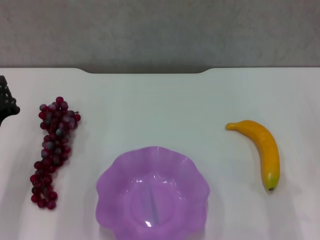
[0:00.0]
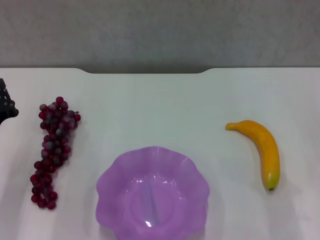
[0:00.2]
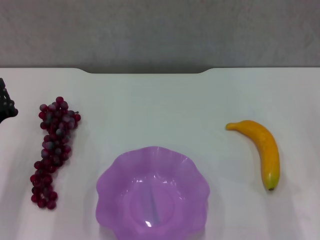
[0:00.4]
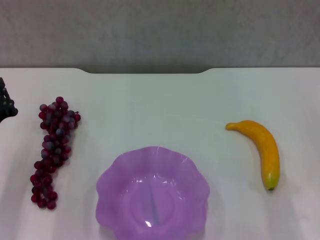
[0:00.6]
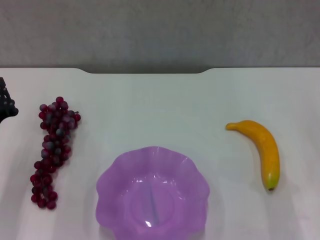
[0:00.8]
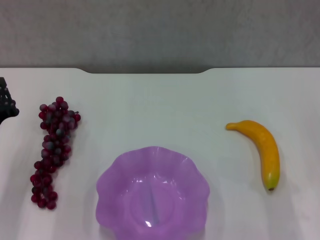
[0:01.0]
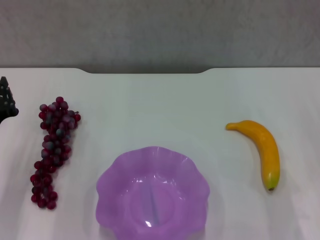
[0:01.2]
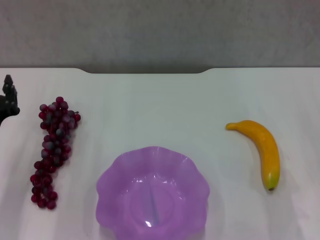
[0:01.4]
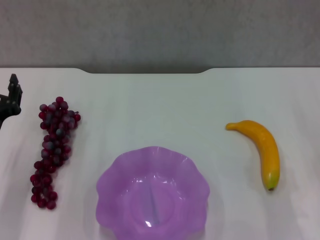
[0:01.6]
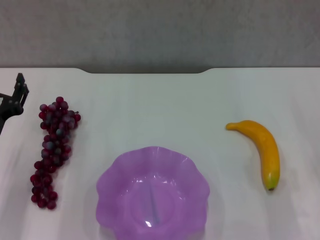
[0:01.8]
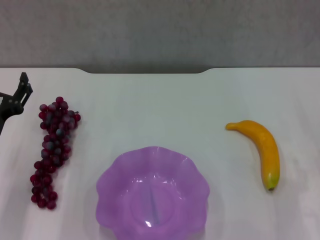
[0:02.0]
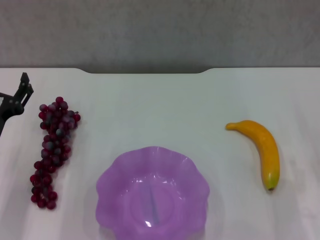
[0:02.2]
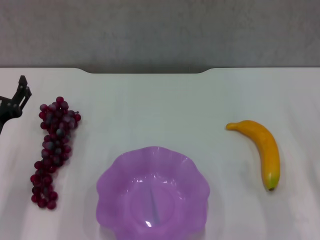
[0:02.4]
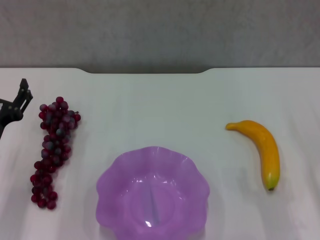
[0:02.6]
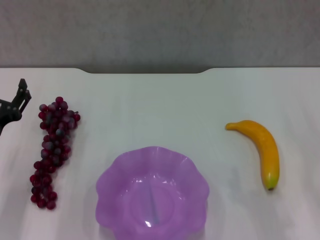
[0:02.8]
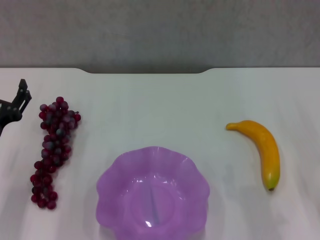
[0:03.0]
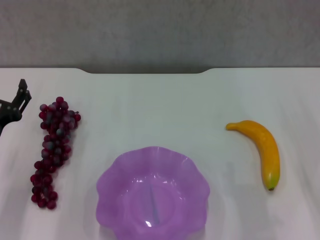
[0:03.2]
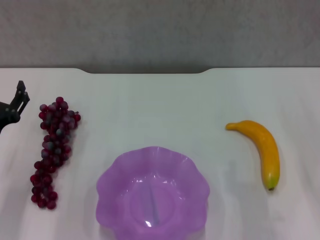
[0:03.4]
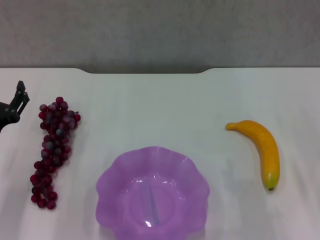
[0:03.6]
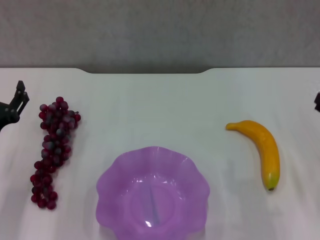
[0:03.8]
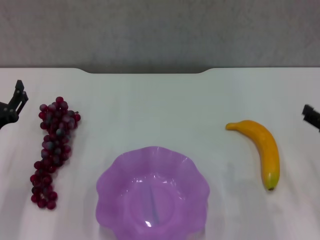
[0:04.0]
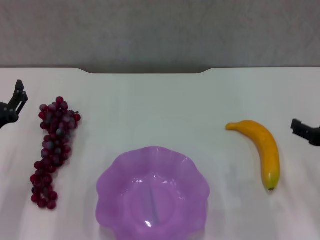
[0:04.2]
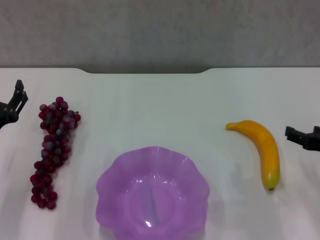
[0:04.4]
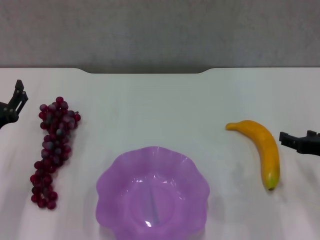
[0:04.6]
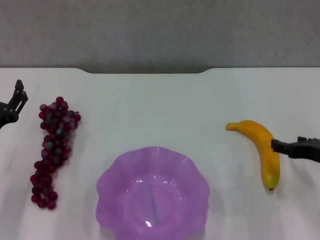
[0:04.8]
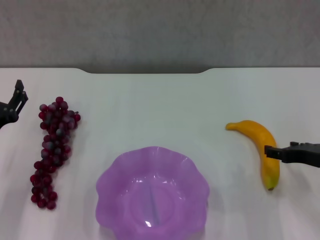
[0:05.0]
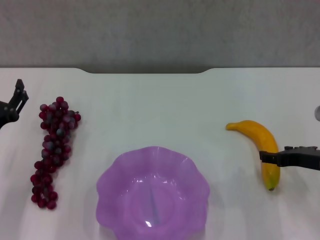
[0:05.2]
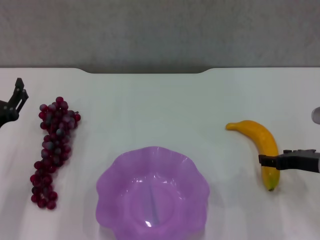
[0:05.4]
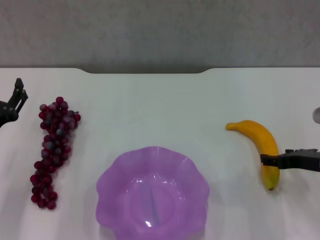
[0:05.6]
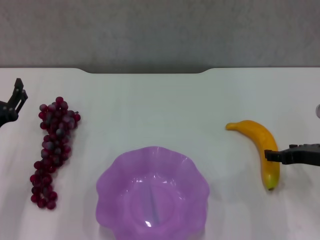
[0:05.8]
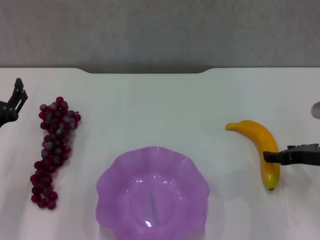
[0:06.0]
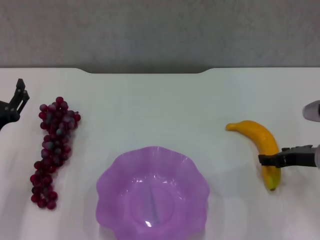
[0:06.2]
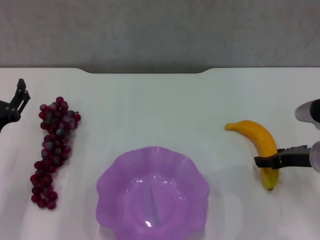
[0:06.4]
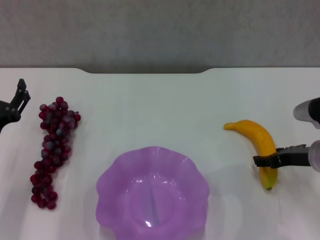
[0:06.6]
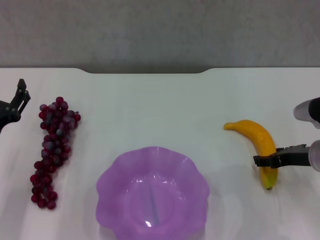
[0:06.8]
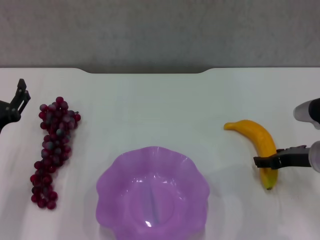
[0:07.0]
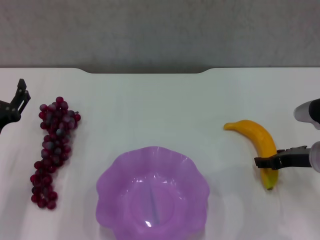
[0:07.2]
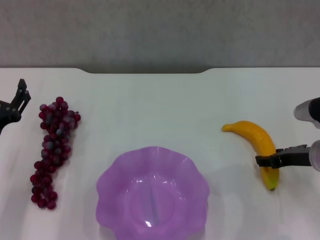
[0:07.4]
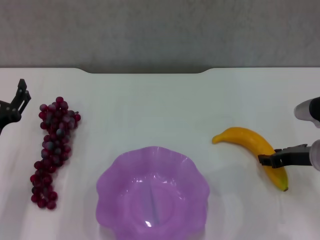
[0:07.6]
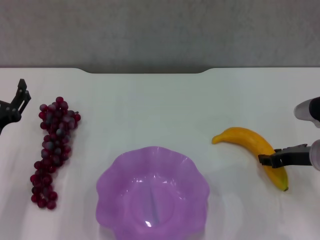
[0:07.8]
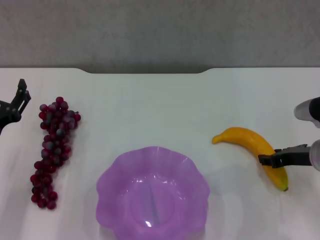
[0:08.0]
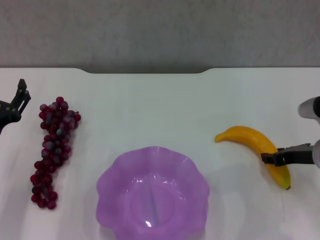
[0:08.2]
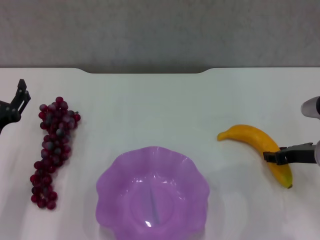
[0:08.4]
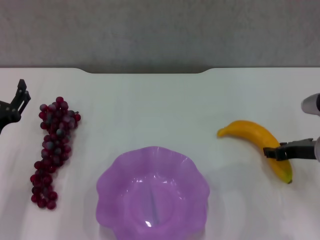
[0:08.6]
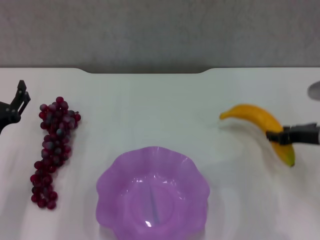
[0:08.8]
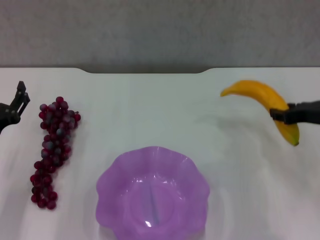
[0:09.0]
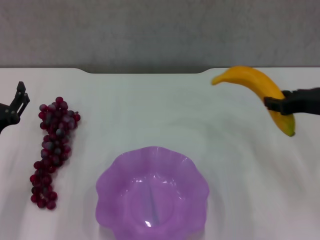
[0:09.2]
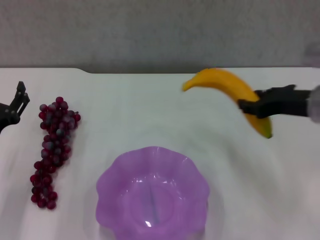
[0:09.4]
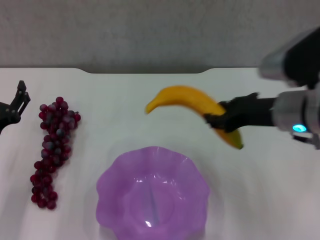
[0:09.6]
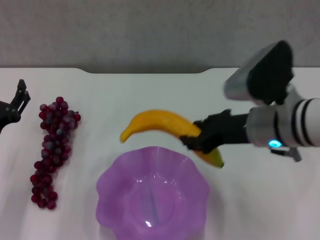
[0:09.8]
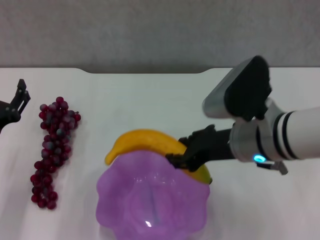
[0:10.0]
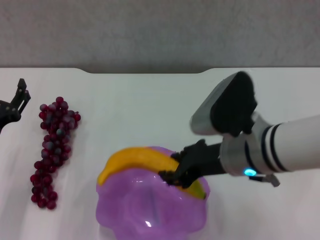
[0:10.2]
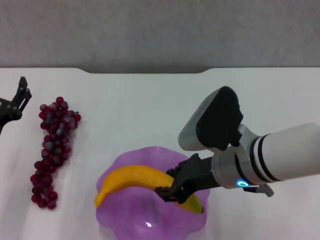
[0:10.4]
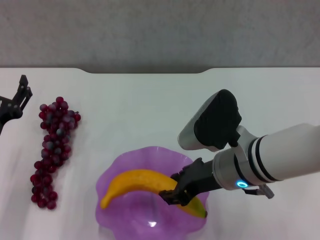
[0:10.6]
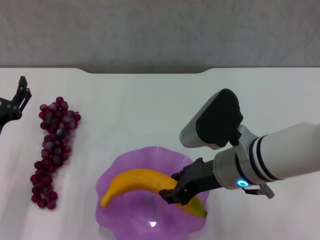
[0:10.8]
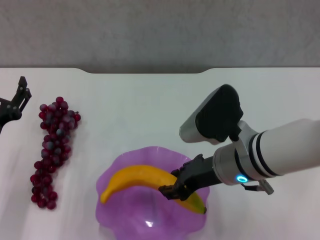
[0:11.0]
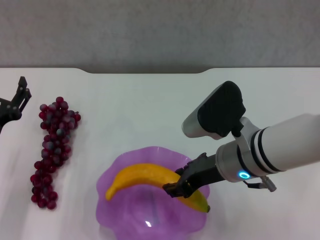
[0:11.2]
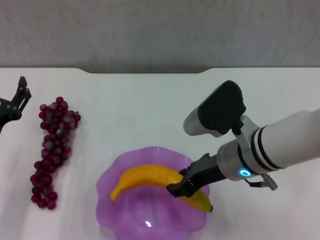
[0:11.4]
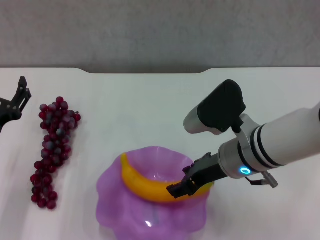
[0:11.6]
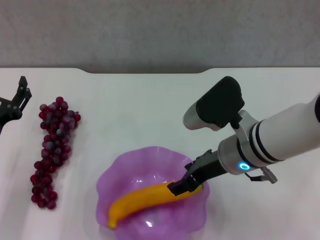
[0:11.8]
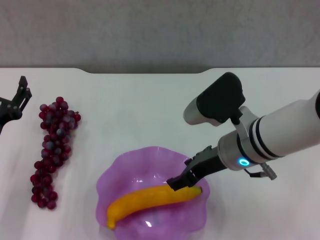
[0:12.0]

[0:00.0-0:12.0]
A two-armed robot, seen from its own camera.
Step, 0:00.0 to 0:07.6: Grasp the banana with right gripper.
Step, 0:07.8 to 0:11.8: Place the banana in the purple plate with right gripper.
0:00.0 to 0:01.6: The left gripper opens up.
0:01.6 to 0:03.0: The left gripper opens.
0:03.0 to 0:04.4: The right gripper moves roughly 5 cm.
0:04.4 to 0:06.0: The right gripper travels forward by roughly 5 cm.
0:06.0 to 0:07.6: The grippers move only a little.
0:07.6 to 0:09.0: The right gripper goes roughly 5 cm upward.
0:09.0 to 0:10.4: The right gripper travels to the left by about 20 cm.
0:10.4 to 0:12.0: The grippers move only a little.

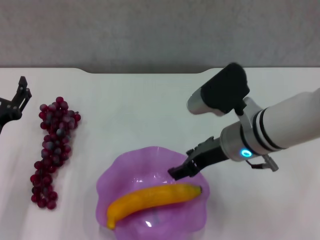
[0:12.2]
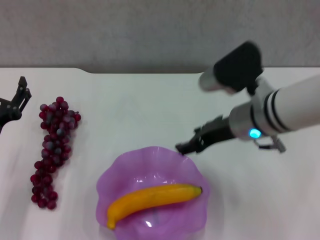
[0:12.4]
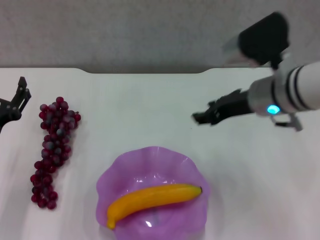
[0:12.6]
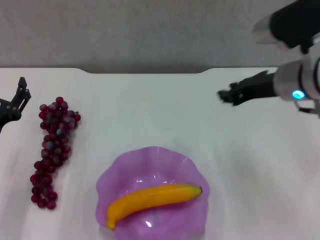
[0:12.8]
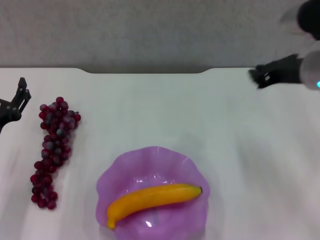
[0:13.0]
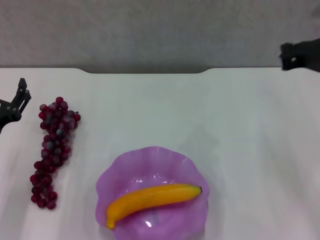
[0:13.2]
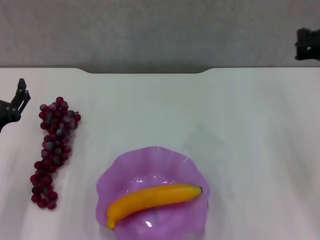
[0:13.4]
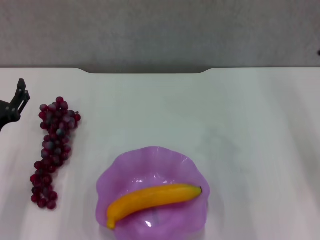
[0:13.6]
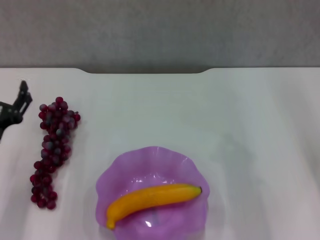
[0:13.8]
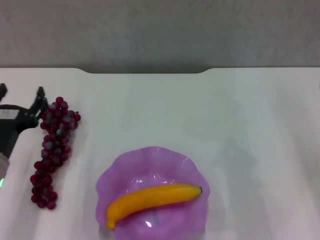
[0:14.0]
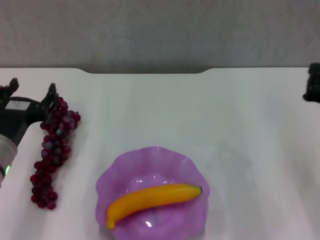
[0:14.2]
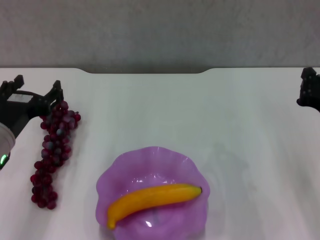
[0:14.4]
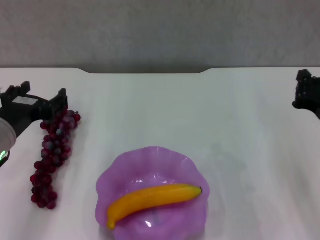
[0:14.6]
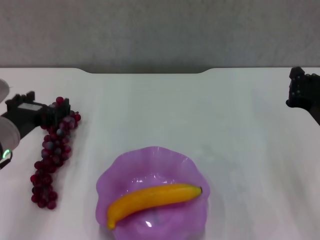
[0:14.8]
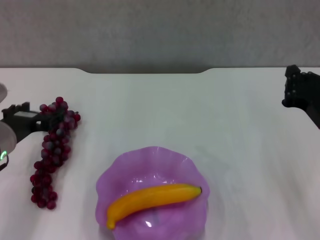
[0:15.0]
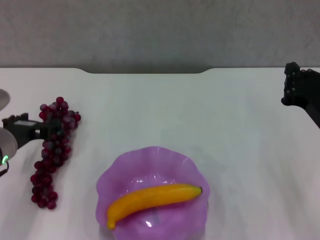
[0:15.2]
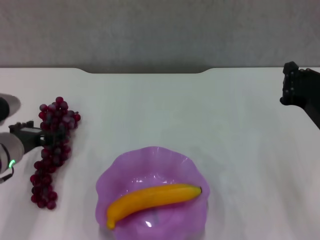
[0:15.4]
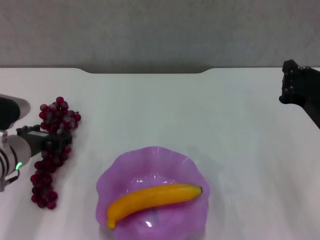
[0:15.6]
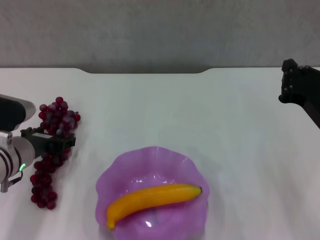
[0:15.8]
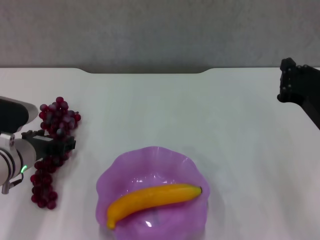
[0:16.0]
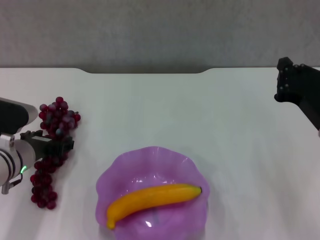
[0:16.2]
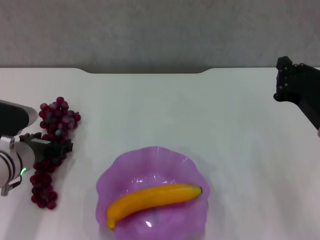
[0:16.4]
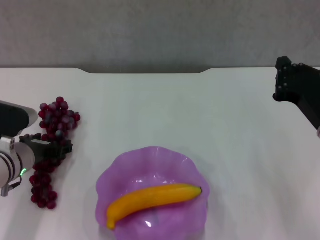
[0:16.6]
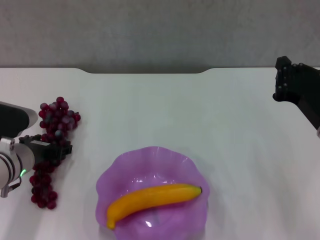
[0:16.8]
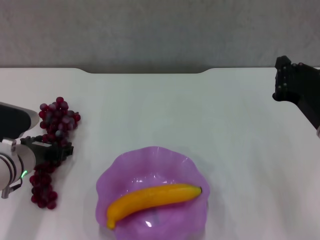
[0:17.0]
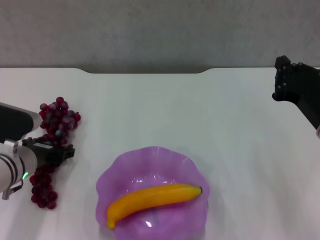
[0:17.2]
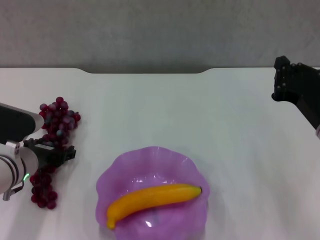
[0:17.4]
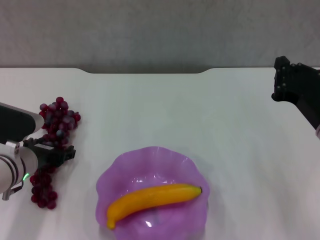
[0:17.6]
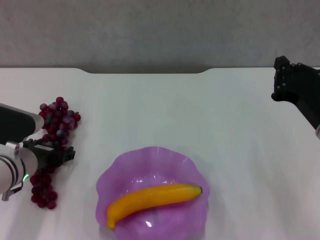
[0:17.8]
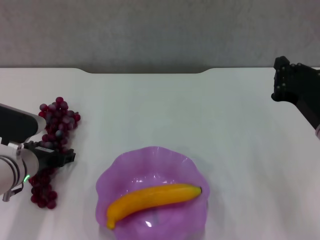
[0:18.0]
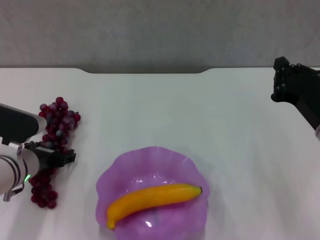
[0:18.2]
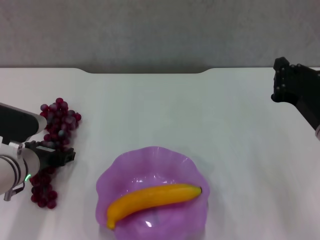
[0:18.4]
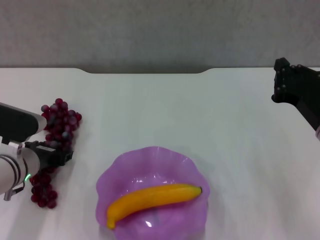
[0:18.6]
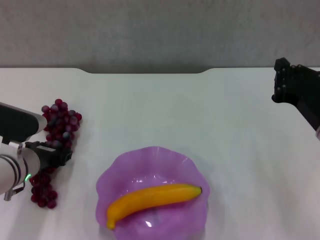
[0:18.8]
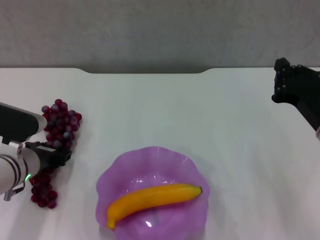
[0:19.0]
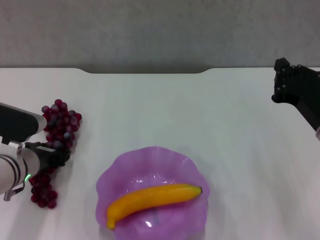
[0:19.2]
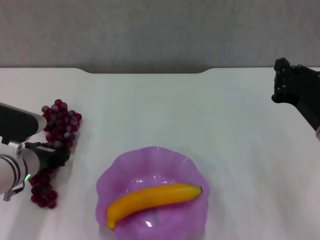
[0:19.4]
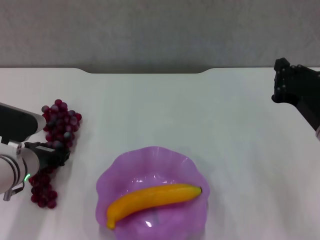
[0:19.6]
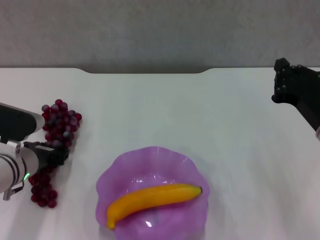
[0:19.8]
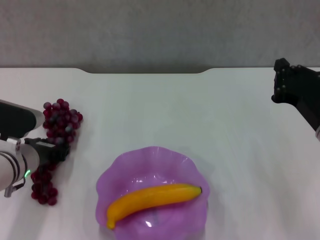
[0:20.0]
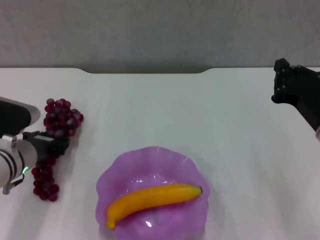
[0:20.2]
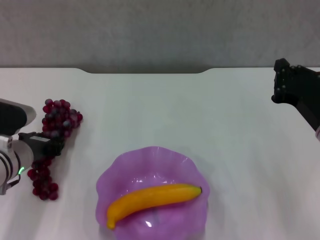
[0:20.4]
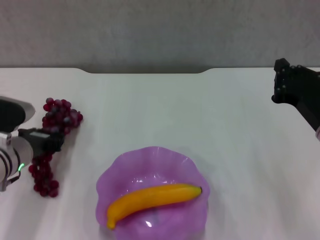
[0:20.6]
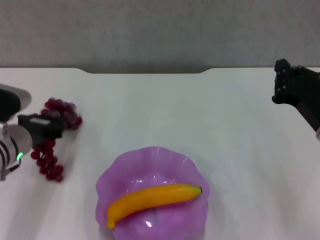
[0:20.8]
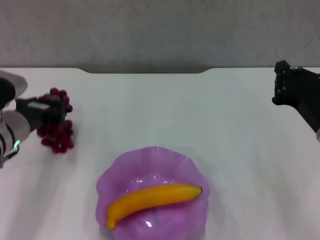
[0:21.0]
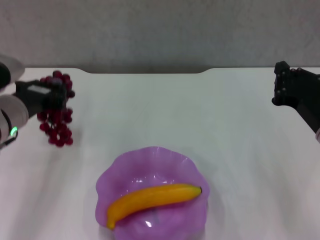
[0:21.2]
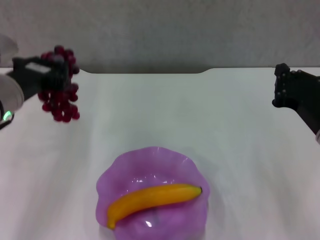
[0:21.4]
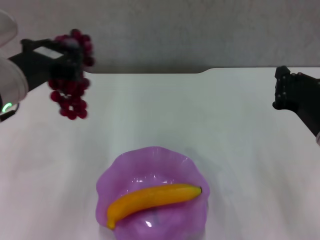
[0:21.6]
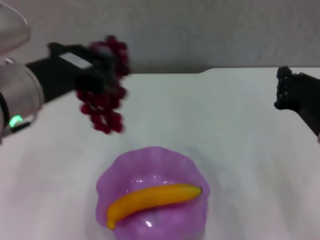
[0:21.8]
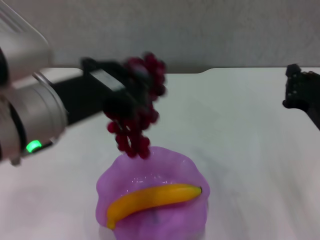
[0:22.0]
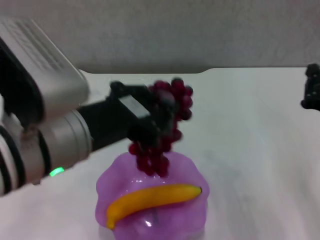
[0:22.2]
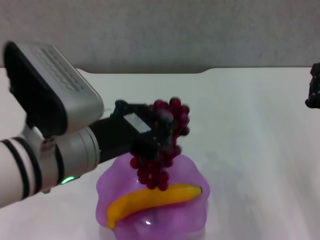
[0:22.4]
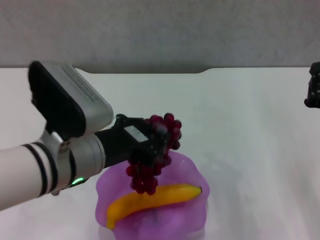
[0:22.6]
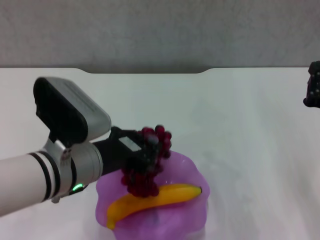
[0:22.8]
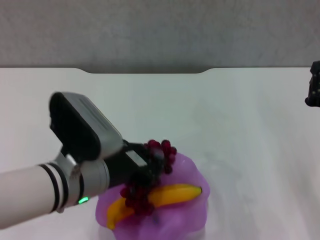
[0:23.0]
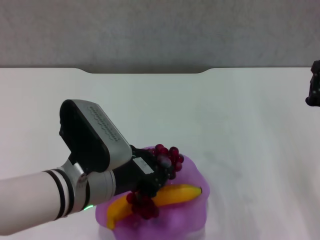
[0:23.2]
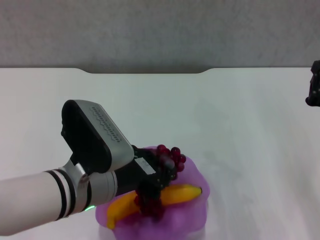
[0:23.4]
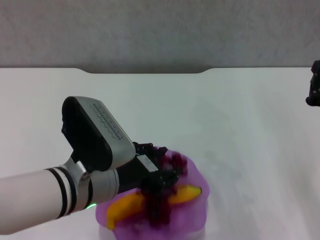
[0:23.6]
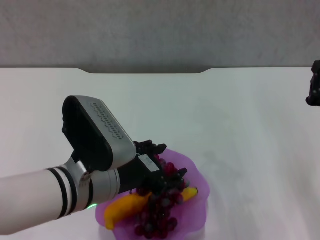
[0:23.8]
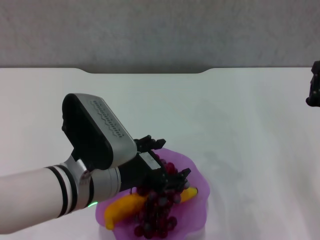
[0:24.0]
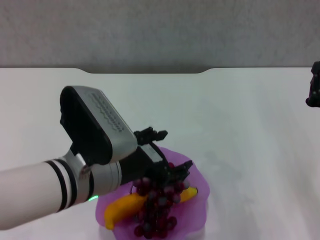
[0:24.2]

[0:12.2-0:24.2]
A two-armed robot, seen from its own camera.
Step, 0:12.2 to 0:19.8: Grasp the grape with left gripper.
0:12.2 to 0:13.8: The right gripper goes approximately 20 cm to the right, and closes up.
0:13.8 to 0:15.2: The left gripper moves forward, some 5 cm. The right gripper moves to the left, roughly 5 cm.
0:15.2 to 0:16.6: The grippers stay close to where they were, moving slightly.
0:16.6 to 0:18.2: Both grippers stay about where they are.
0:18.2 to 0:19.8: The left gripper closes.
0:19.8 to 0:21.2: The left gripper heads upward, covering about 10 cm.
0:21.2 to 0:22.6: The left gripper shifts approximately 15 cm to the right and backward, and goes upward and returns, some 10 cm each way.
0:22.6 to 0:24.2: The left gripper opens up.
